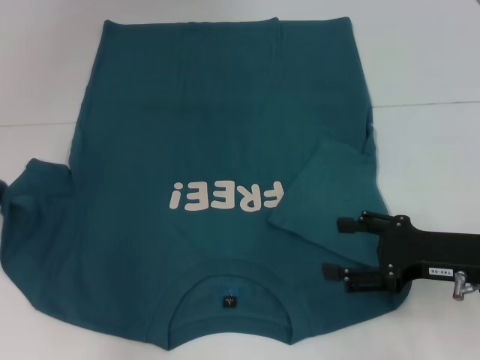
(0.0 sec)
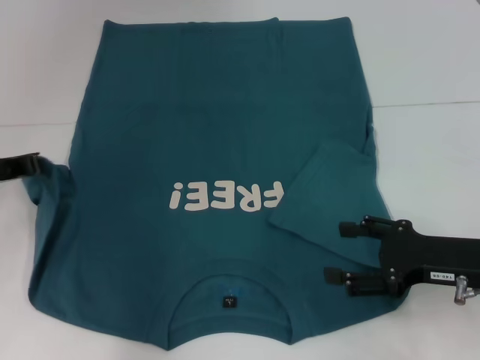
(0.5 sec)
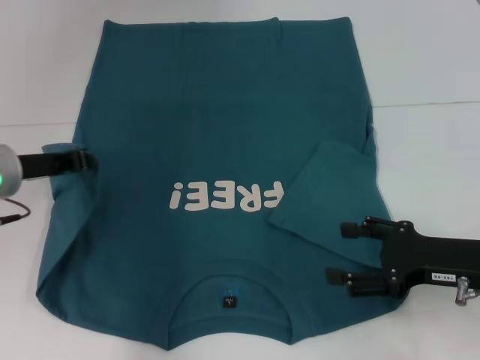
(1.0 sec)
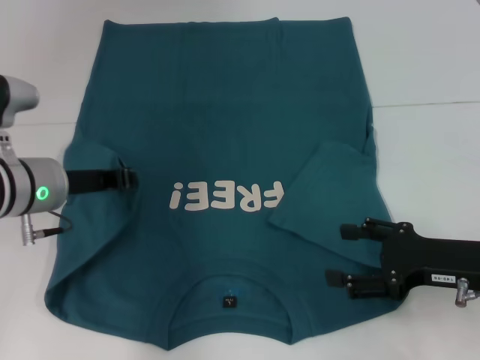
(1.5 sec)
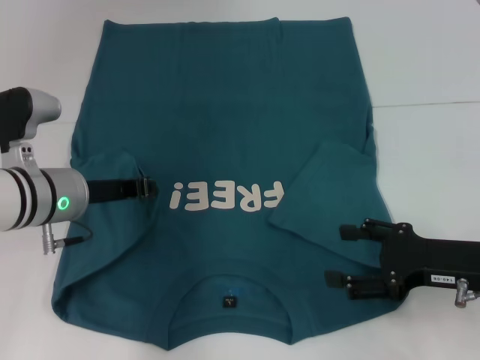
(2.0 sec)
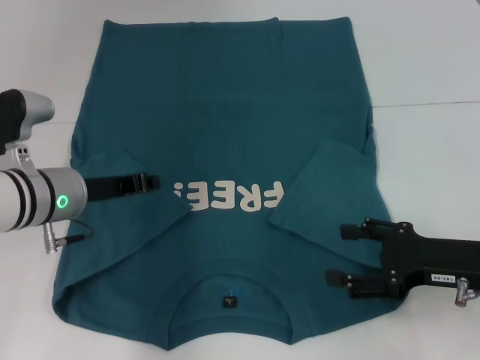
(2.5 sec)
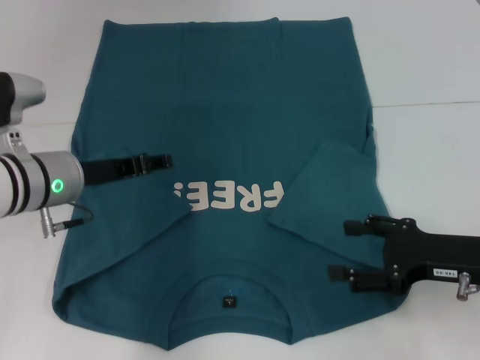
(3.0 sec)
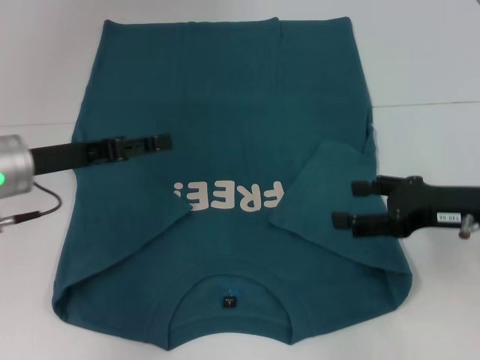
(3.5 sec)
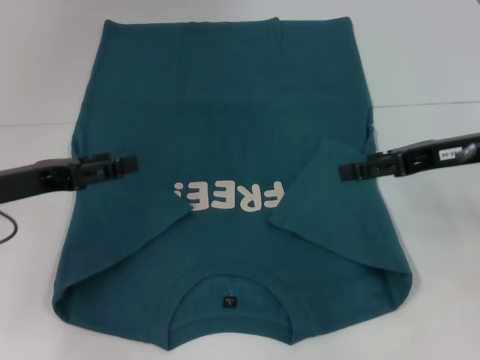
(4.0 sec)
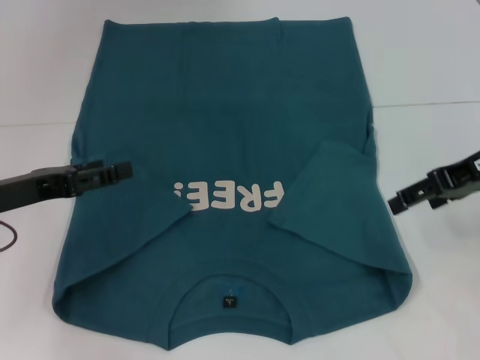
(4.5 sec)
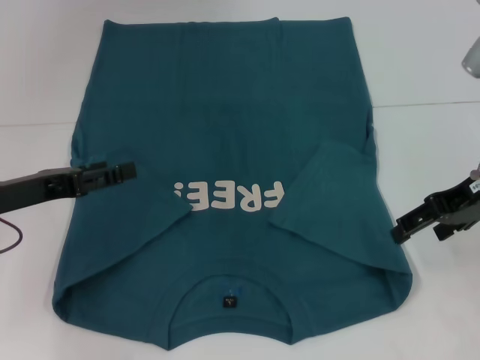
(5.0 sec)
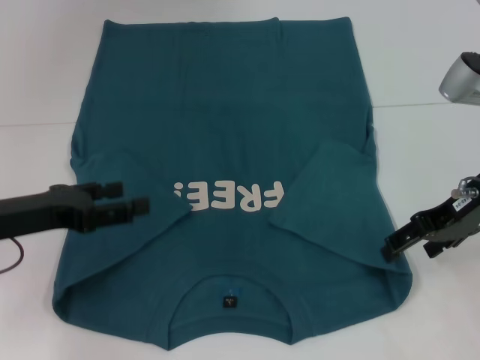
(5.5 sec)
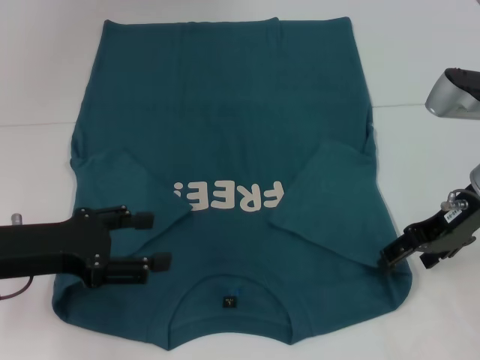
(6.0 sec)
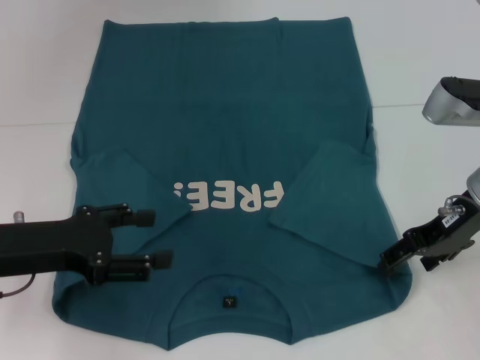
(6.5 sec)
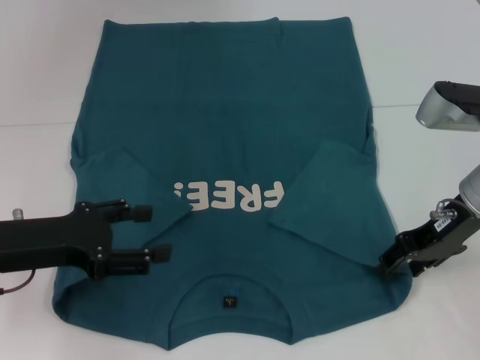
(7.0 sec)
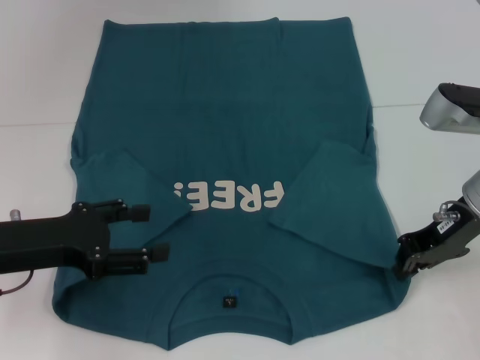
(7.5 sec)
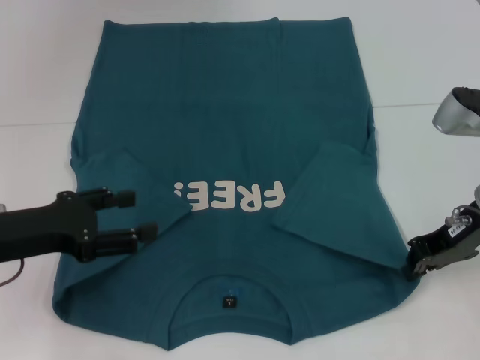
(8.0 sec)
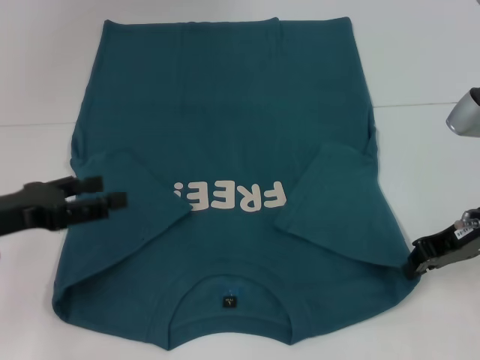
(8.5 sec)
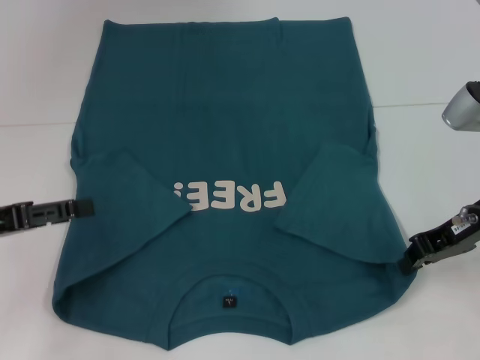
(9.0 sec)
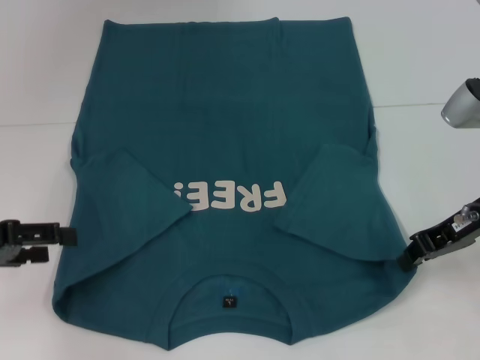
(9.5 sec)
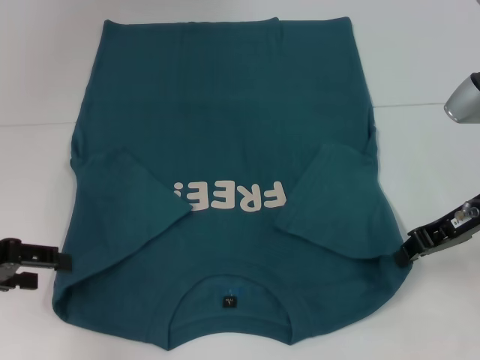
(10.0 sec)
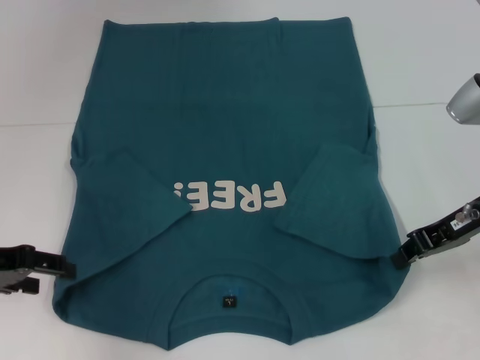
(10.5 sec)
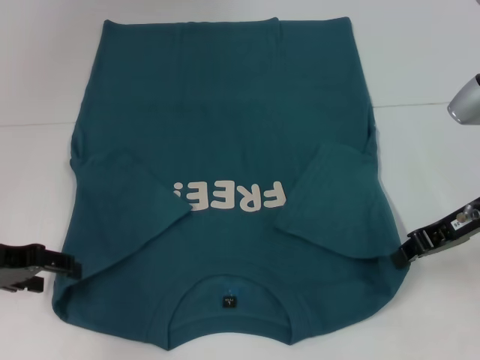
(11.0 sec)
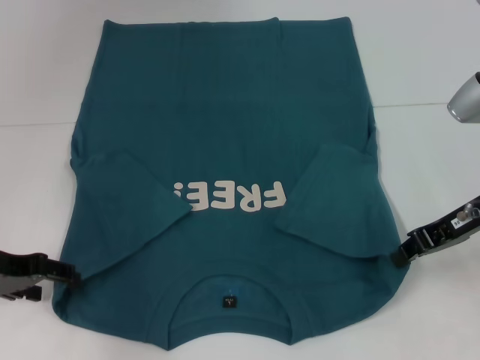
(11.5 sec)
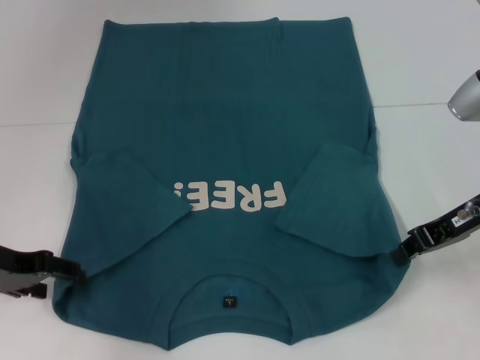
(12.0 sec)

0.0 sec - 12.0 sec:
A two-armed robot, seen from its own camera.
Step, 0.0 sec - 2.5 sec: Fold the bottom left sleeve with your left hand.
Step, 3.0 sec - 8.0 sec: Grab the bottom right corner with your right hand.
0.0 sec - 2.0 sec: The left gripper travels to the right by approximately 15 cm.
2.0 sec - 4.0 sec: The left gripper travels to the left by about 10 cm, and opens its fingers; the right gripper travels upward and forward by about 15 cm.
6.0 sec - 8.0 sec: The right gripper closes its fingers.
8.0 sec - 10.0 sec: The left gripper ends up roughly 5 cm from where it was.
10.0 sec - 12.0 sec: The left gripper moves roughly 5 cm.

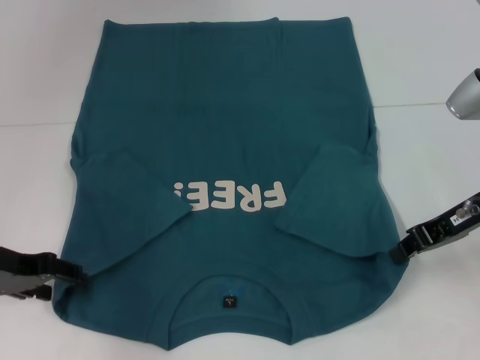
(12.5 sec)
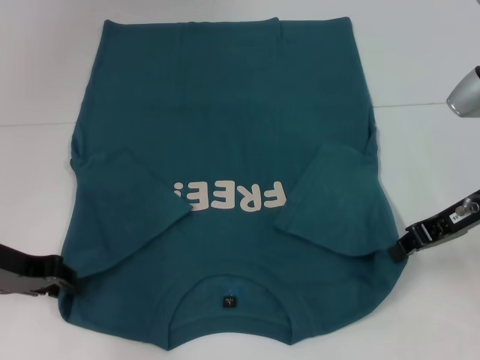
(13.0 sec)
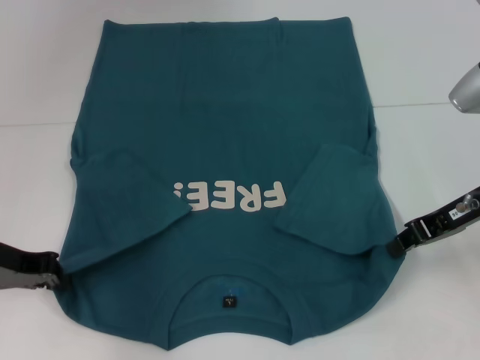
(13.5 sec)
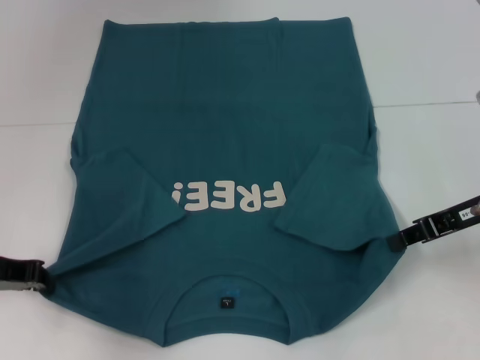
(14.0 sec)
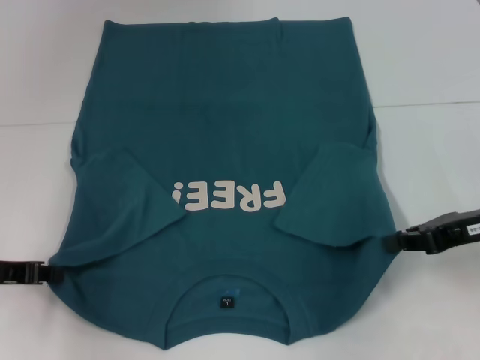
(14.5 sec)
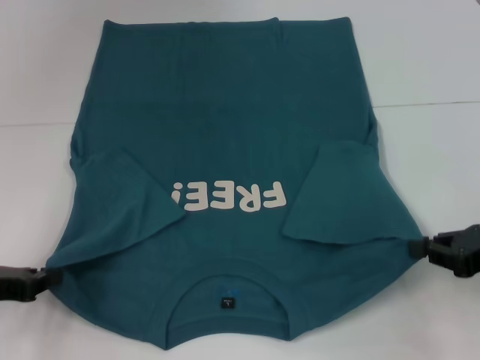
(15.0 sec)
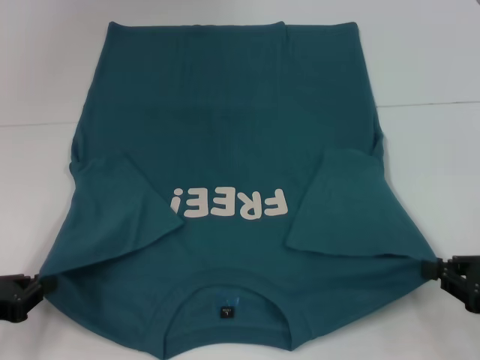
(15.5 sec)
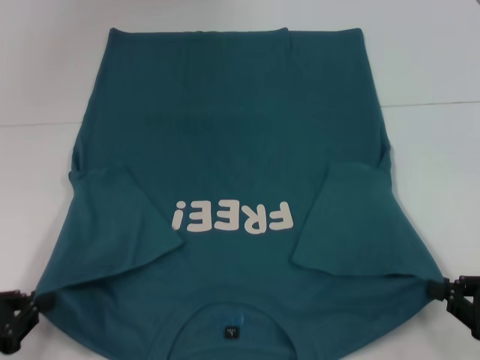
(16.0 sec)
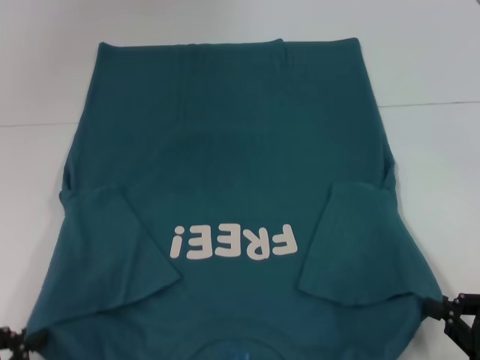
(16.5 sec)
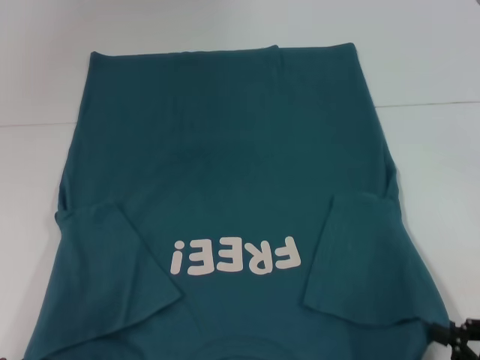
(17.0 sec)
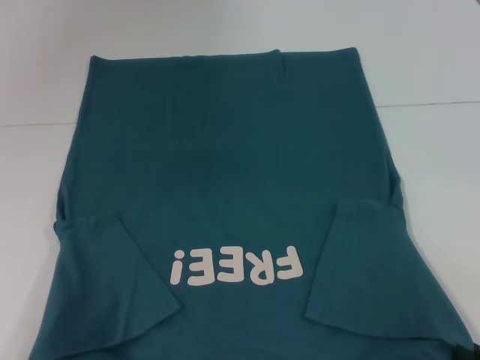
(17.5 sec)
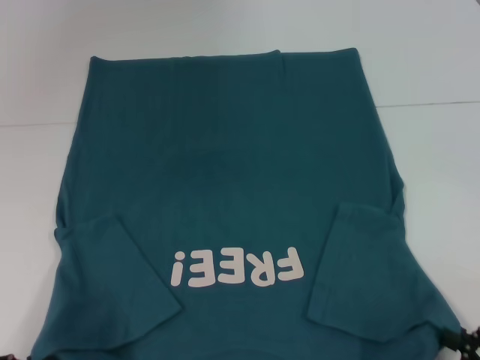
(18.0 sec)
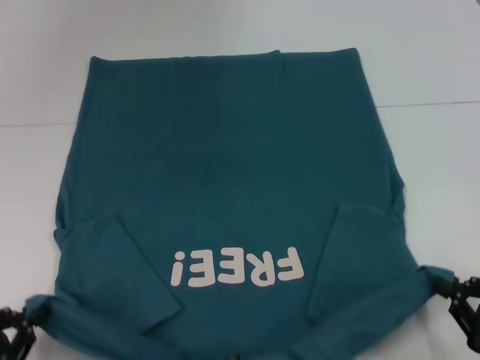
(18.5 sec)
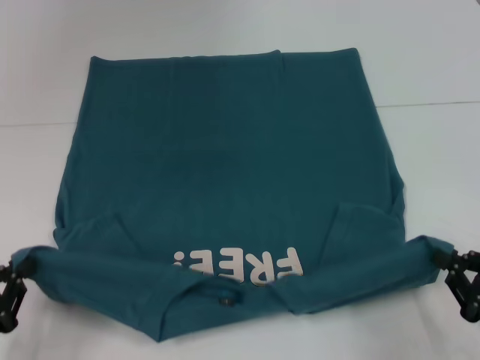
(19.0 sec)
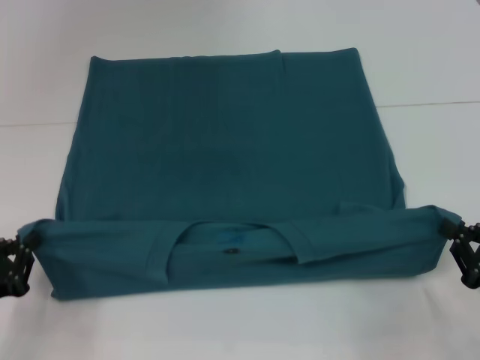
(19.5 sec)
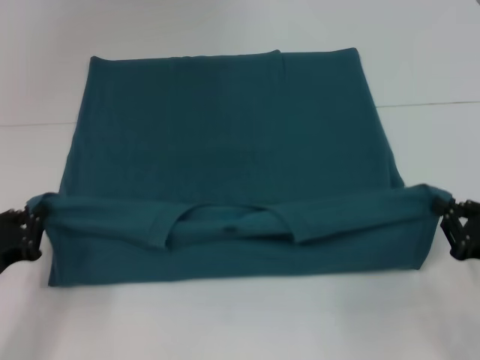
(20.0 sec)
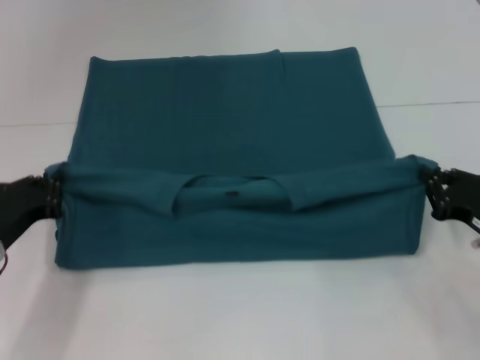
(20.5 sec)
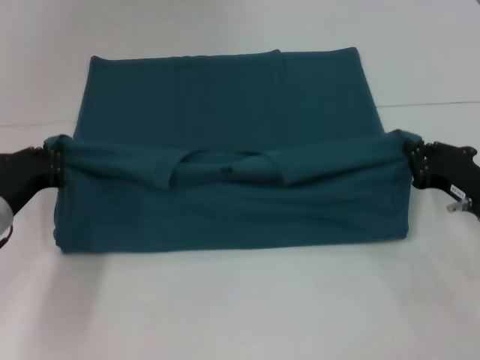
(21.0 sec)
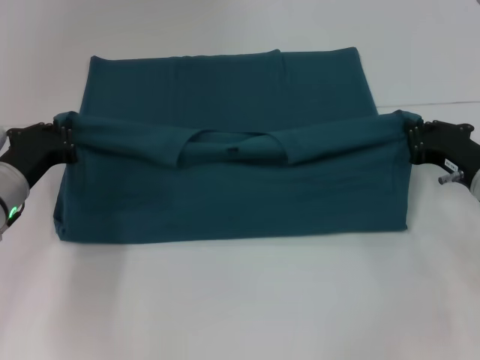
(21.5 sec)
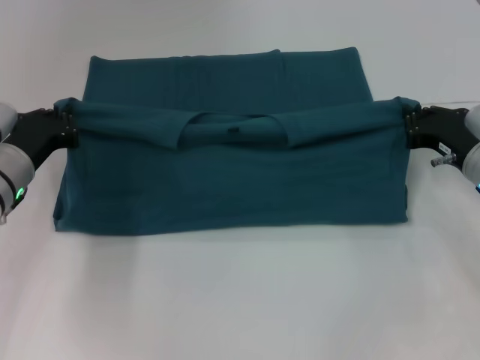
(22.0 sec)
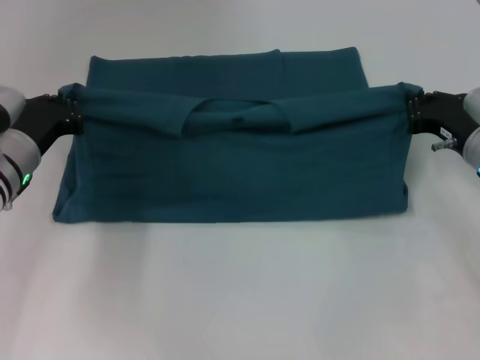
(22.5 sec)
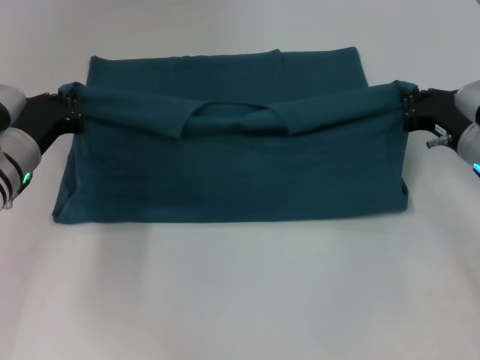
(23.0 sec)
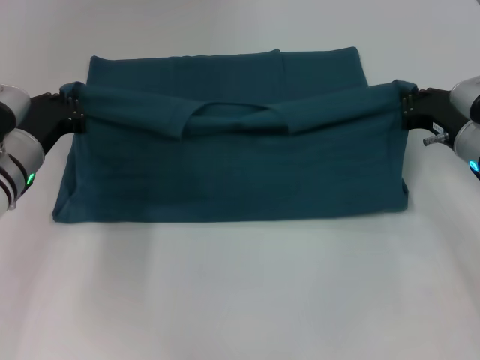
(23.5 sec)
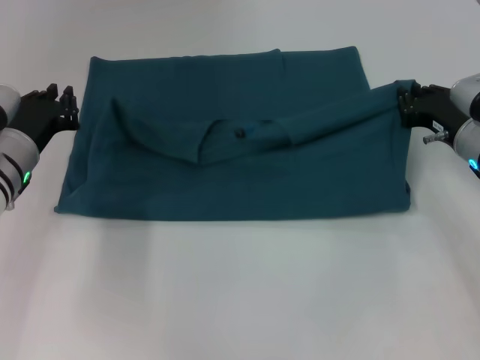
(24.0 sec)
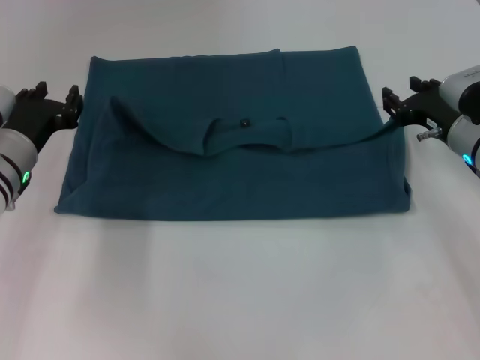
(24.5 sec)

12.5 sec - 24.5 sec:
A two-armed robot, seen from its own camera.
12.5 sec - 14.5 sec: The left gripper closes.
14.5 sec - 16.5 sec: The left gripper travels backward by approximately 15 cm. The right gripper goes about 20 cm backward and downward.
18.5 sec - 20.5 sec: The grippers both shift forward by some 15 cm.
20.5 sec - 22.5 sec: Both grippers travel together forward, roughly 10 cm.
22.5 sec - 24.5 sec: The left gripper opens its fingers.

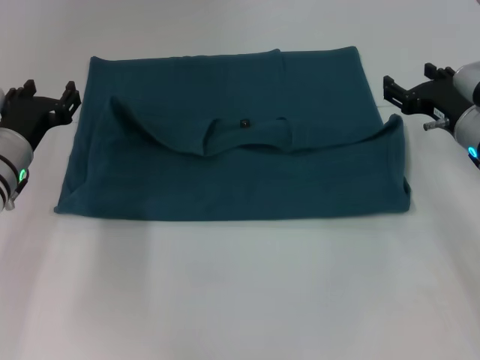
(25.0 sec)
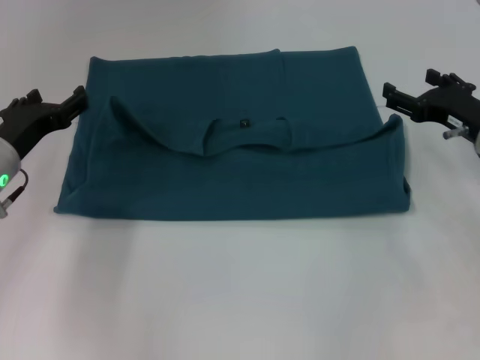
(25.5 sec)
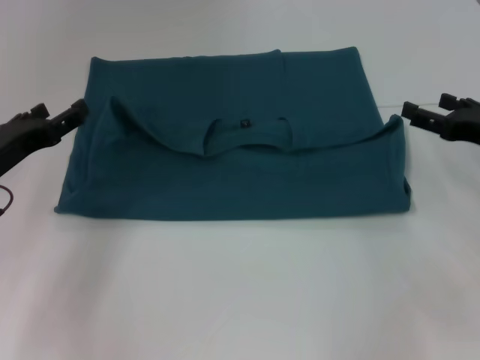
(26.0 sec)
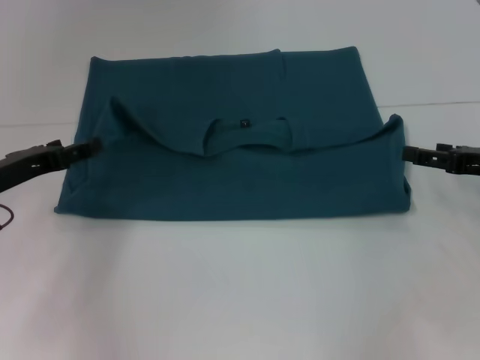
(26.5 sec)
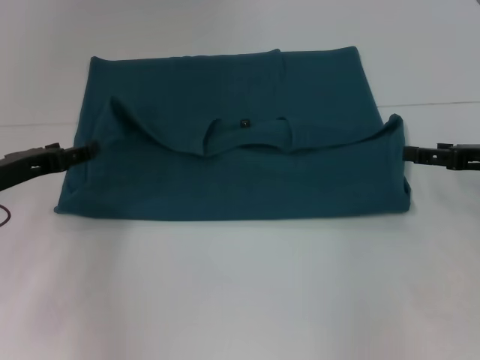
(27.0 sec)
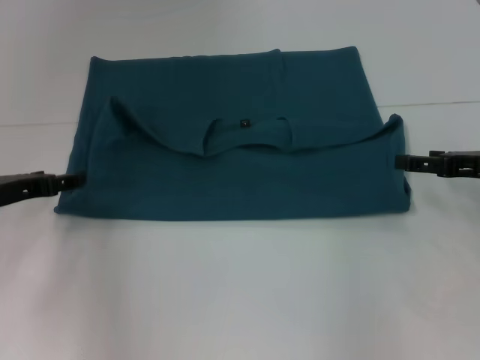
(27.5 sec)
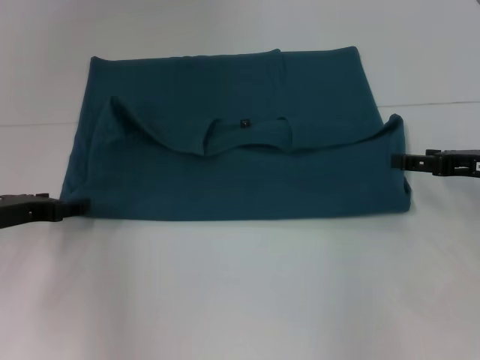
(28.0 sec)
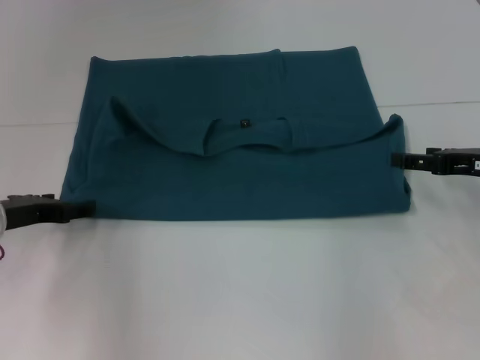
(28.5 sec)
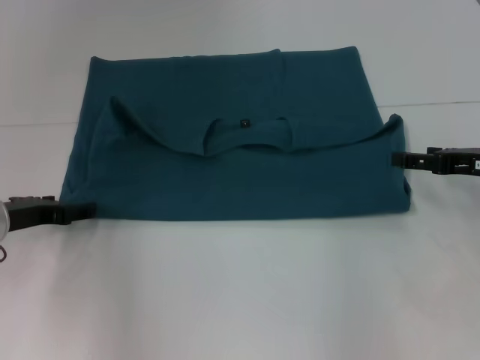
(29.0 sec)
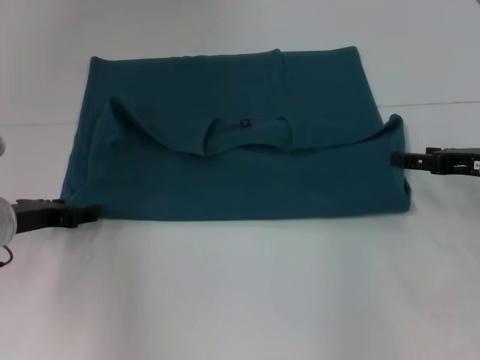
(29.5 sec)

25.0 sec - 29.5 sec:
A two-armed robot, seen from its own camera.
25.0 sec - 27.0 sec: The left gripper changes place by some 5 cm. The right gripper travels backward and to the right by approximately 10 cm.
